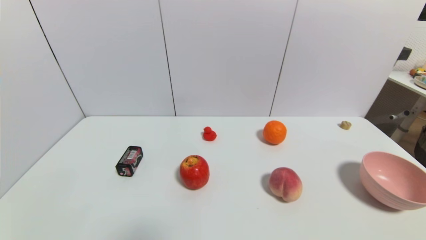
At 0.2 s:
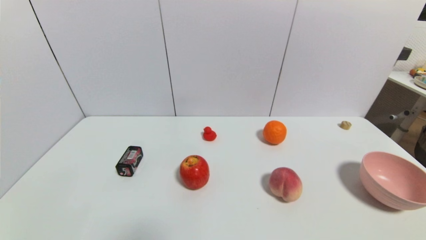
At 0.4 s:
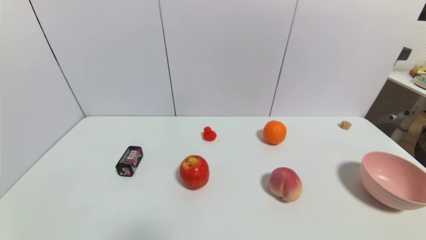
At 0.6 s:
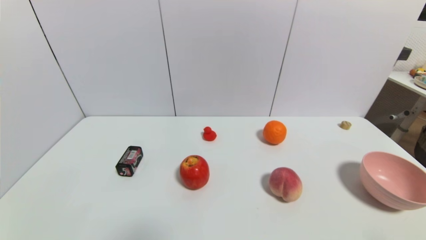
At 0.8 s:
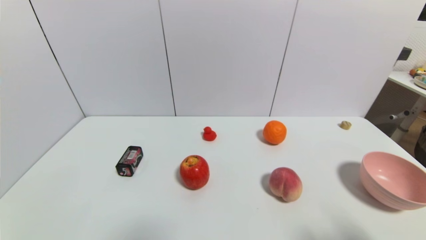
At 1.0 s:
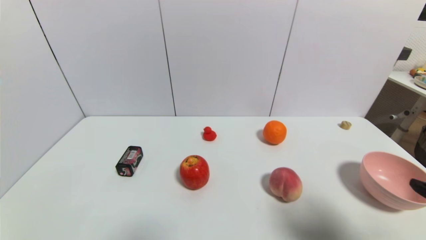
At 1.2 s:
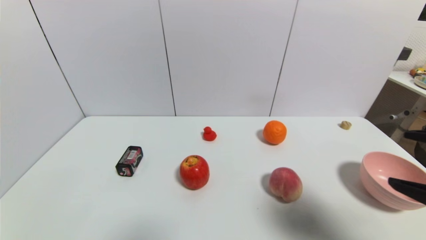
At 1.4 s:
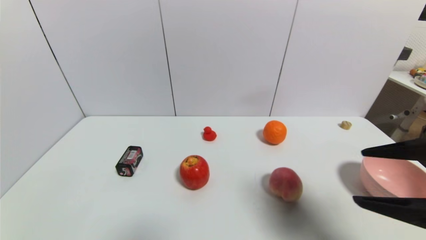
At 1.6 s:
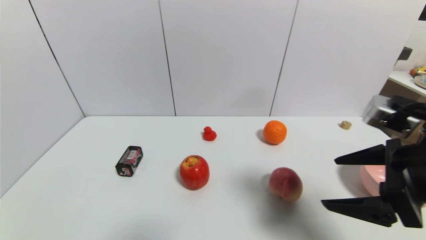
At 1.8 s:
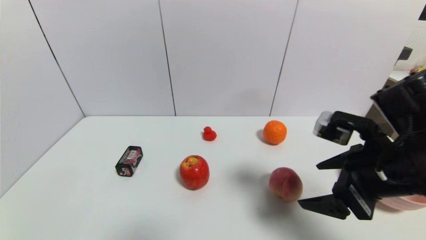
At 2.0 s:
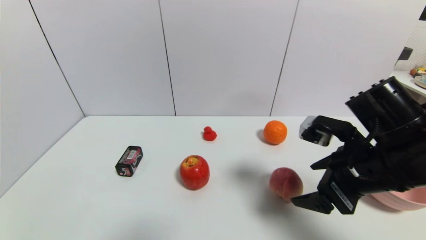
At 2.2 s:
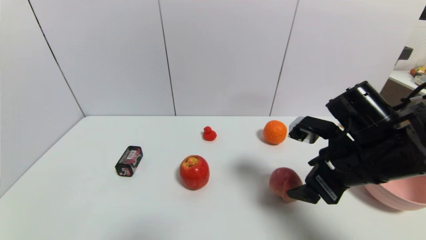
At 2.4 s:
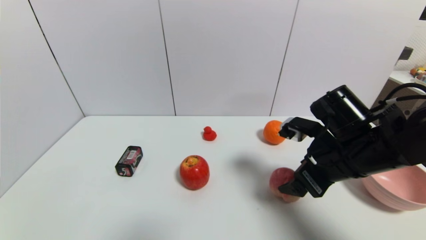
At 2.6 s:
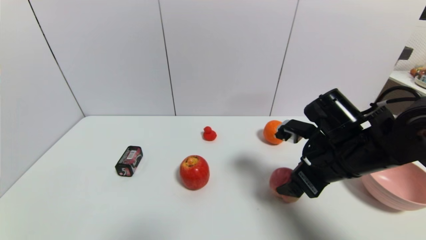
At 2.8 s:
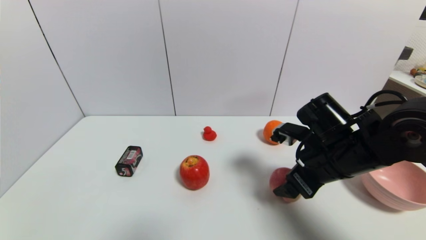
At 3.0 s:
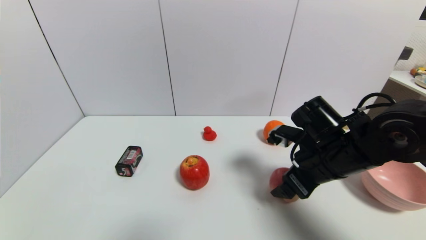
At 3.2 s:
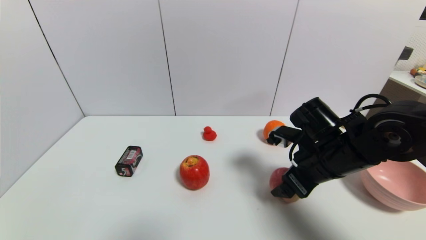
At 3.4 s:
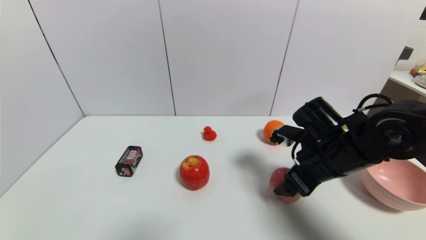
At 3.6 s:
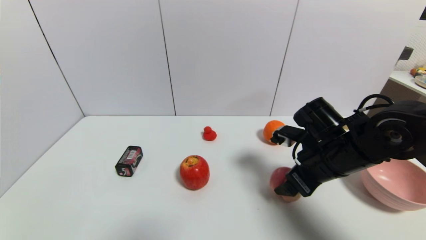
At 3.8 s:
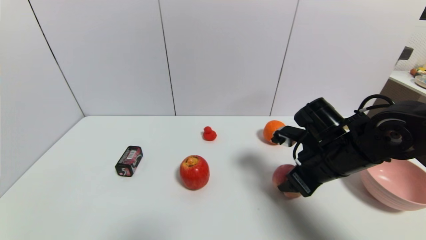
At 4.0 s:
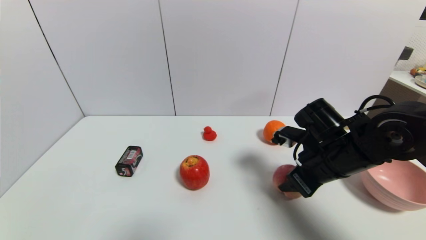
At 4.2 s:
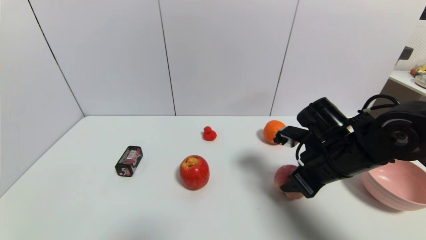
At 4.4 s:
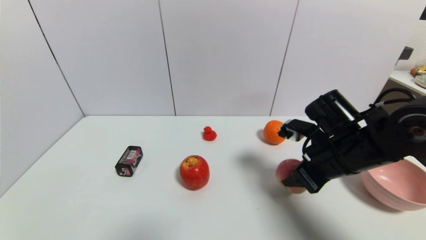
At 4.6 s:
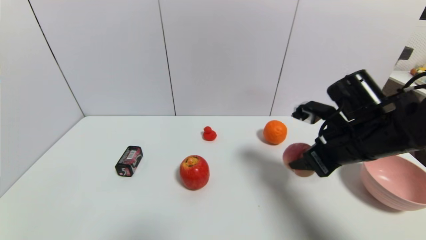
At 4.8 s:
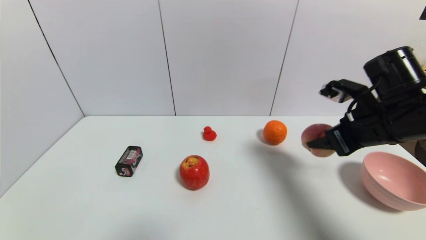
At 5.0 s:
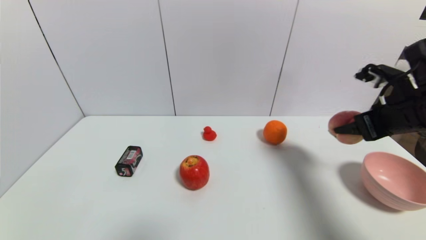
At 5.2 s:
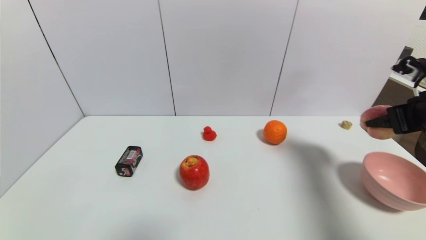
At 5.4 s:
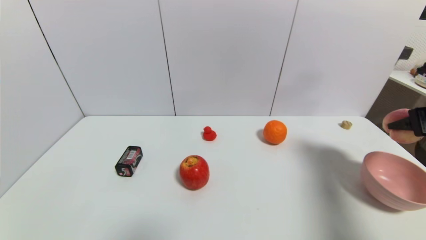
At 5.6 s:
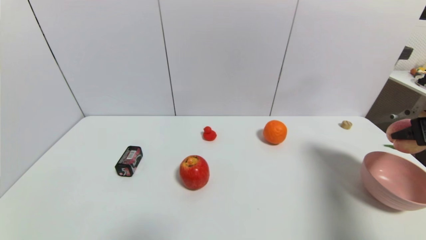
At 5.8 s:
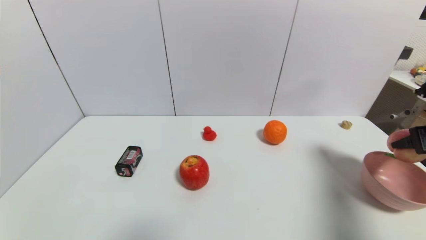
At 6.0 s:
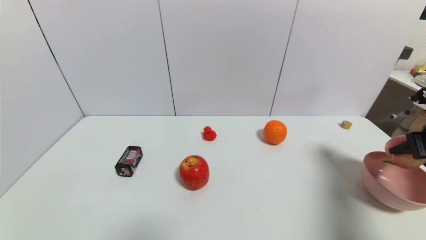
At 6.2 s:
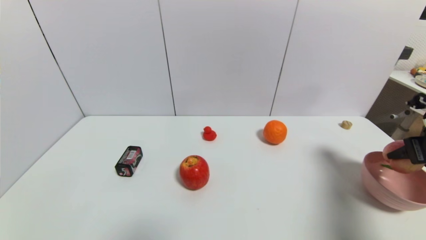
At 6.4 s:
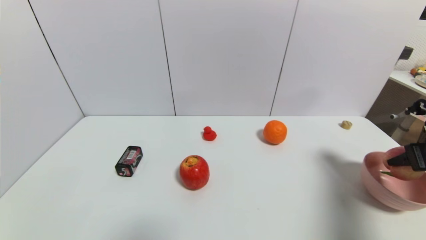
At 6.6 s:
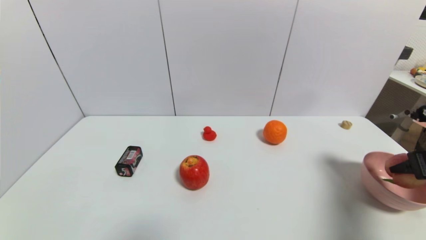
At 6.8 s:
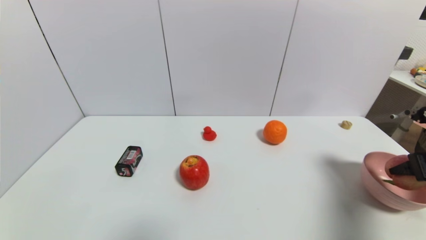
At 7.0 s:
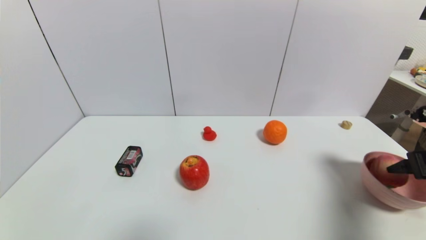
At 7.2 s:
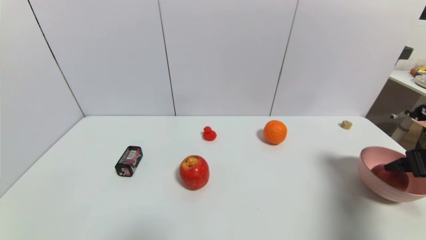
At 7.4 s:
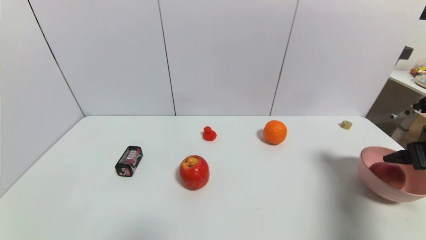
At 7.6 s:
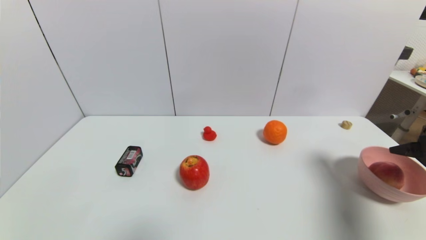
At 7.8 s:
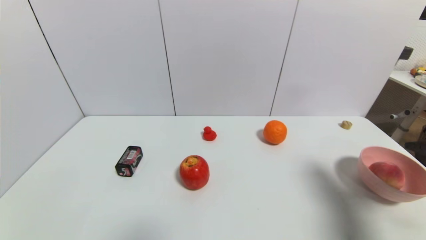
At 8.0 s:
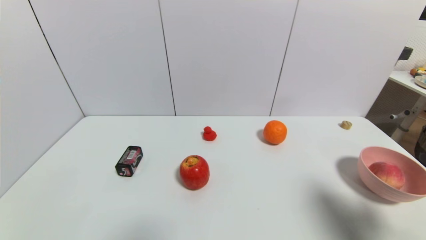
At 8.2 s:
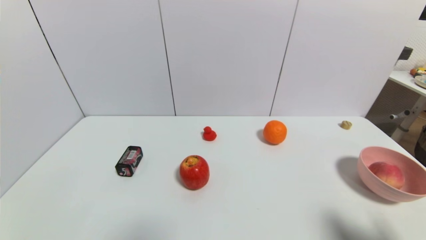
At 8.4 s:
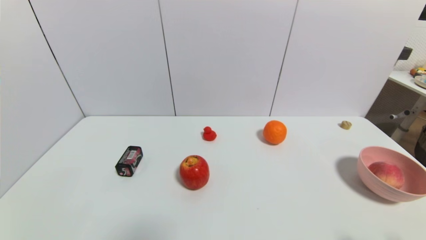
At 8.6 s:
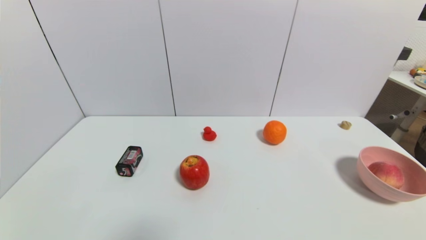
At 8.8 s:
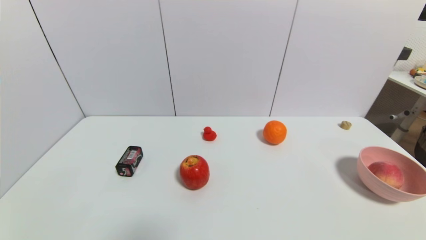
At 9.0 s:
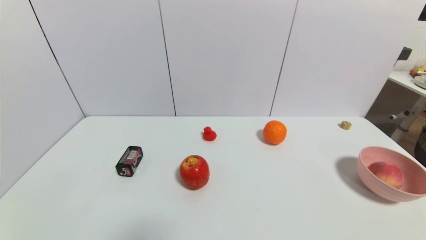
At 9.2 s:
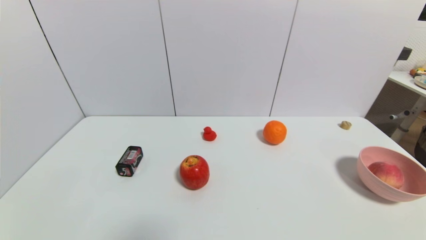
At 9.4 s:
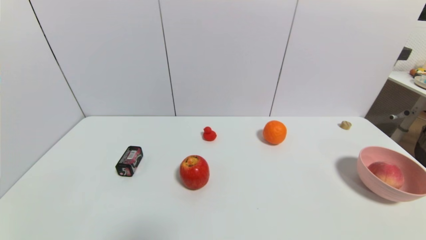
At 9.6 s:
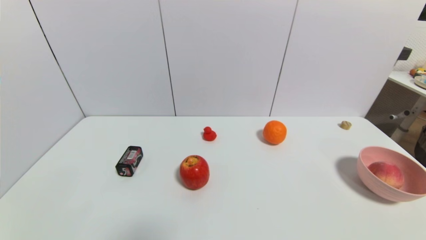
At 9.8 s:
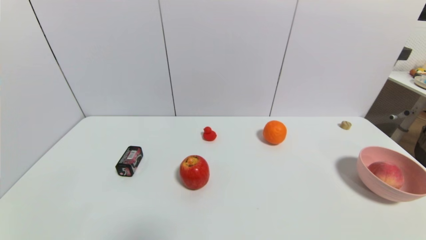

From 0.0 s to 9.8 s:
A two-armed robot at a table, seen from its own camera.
Task of the whole recording: use a gripper to pick the target object and place on the pink bowl.
Step, from 0.0 s to 4.0 s: Grasp the peach with the right gripper.
Step, from 4.2 s to 7.4 s: Place the peach on the pink bowl with the right gripper.
From 0.0 s to 1.4 s: The right gripper shifts approximately 25 cm upward and forward.
From 1.4 s to 2.8 s: The right gripper moves forward, downward and to the left, roughly 15 cm.
From 2.8 s to 4.2 s: The right gripper closes its fingers.
From 4.2 s to 5.6 s: The right gripper goes roughly 20 cm to the right and upward.
From 5.6 s to 7.0 s: The right gripper opens.
From 7.0 s to 8.4 s: The right gripper travels backward by some 20 cm, and opens.
